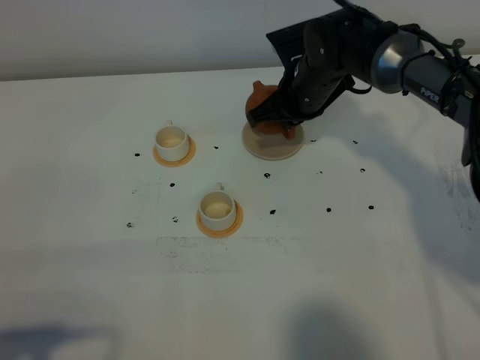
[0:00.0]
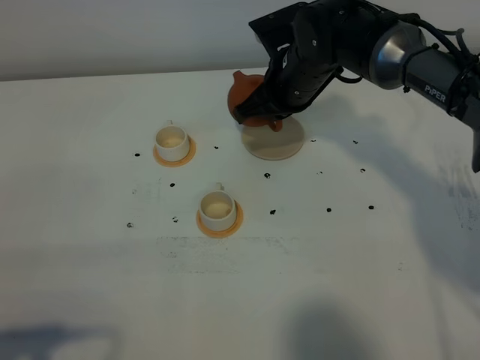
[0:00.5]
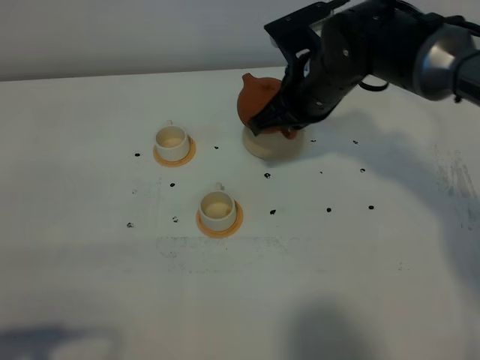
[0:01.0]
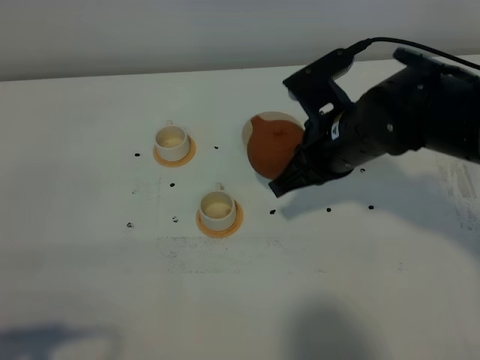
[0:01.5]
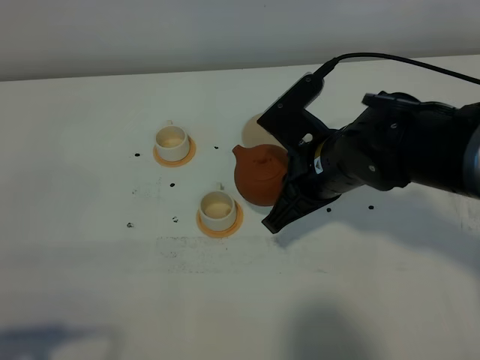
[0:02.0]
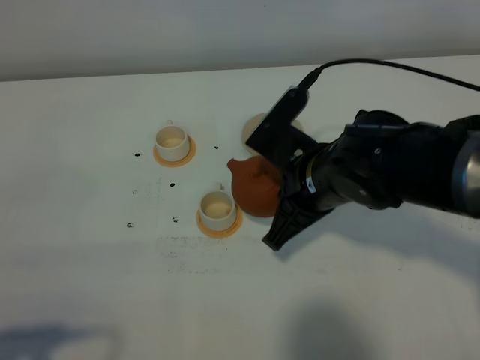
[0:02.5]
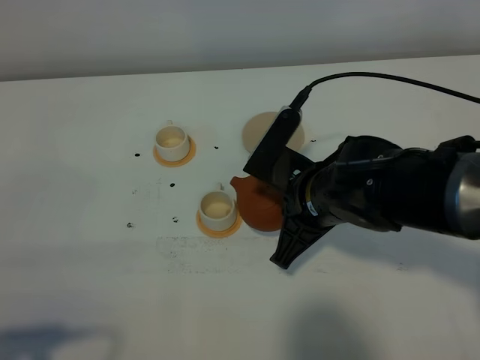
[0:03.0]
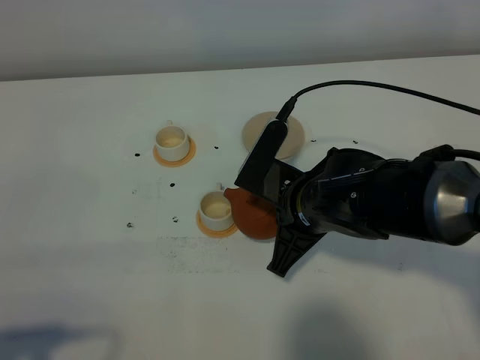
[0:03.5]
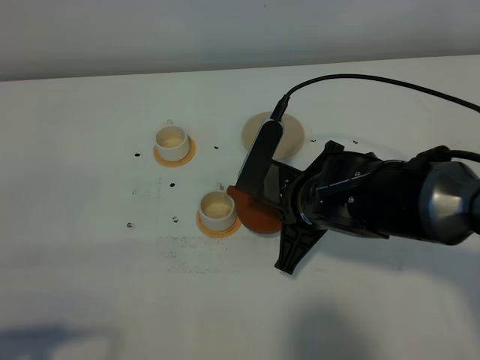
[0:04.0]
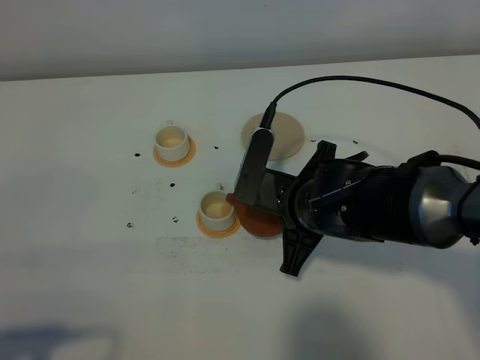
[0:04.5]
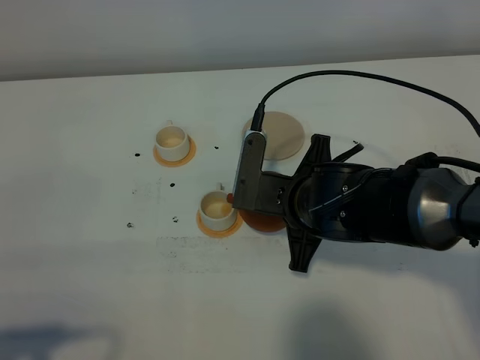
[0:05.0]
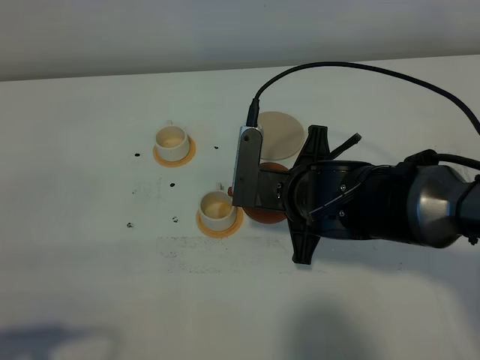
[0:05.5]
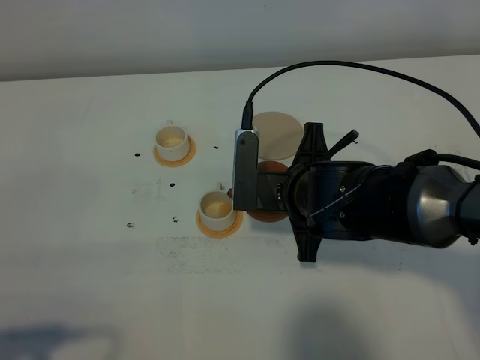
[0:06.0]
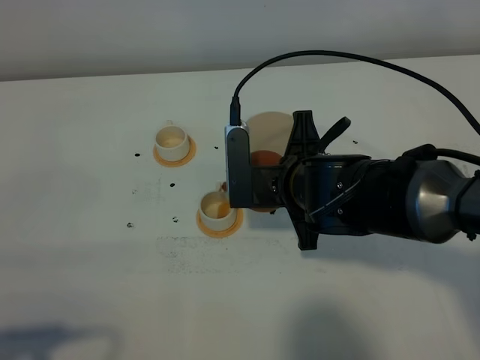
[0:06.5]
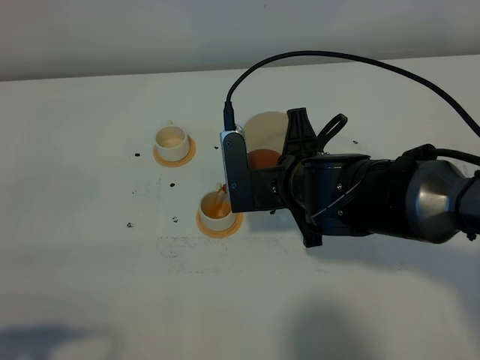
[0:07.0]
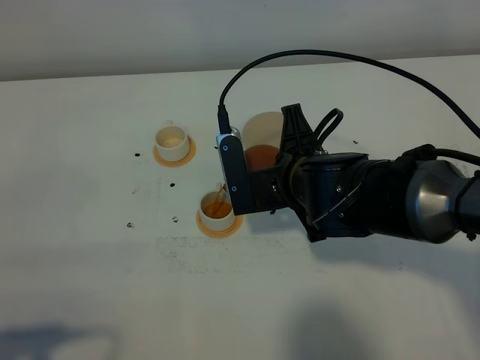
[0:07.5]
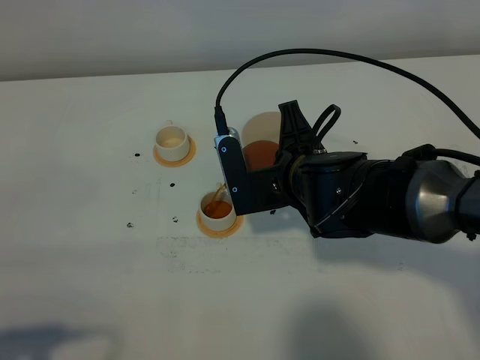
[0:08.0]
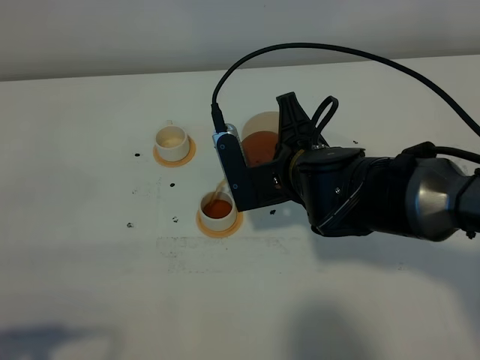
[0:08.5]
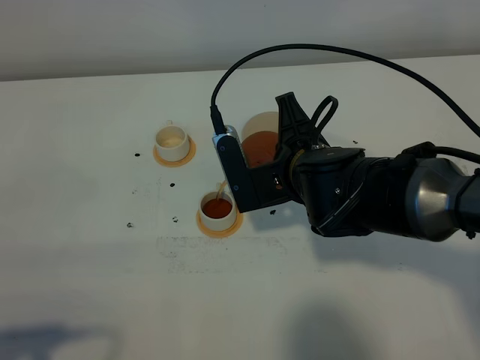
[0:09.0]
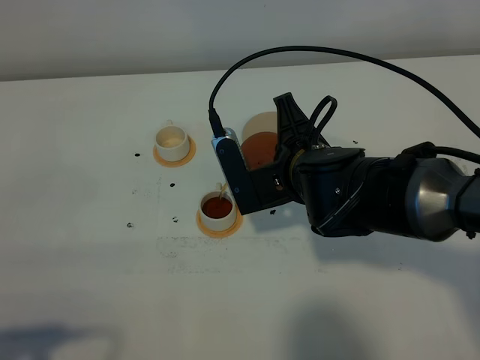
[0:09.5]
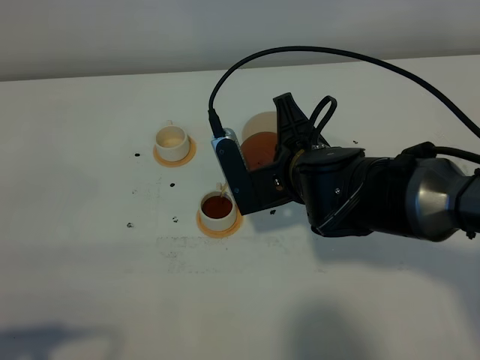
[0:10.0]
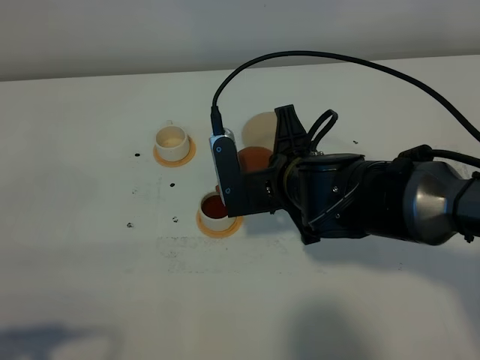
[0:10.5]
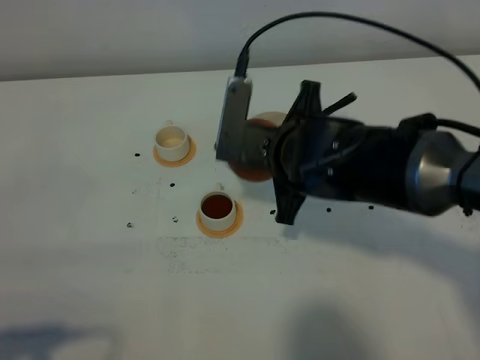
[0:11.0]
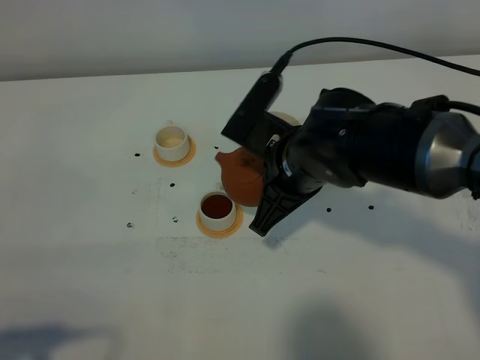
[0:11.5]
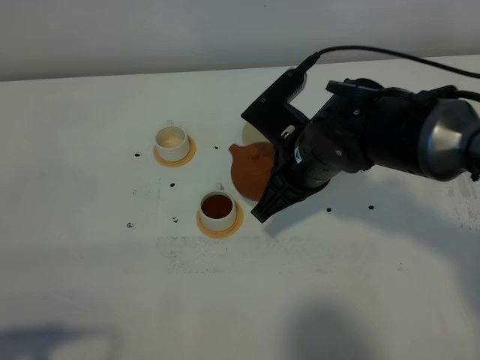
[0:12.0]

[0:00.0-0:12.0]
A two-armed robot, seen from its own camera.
Task of the whole recording: grasp the brown teapot and pour the tea into the two white teacups one by one, put the brown teapot back in its original place.
0:00.0 to 0:02.0: The right gripper heads backward, covering approximately 15 cm.
0:06.0 to 0:08.0: The grippers stay close to where they were, moving slightly.
0:08.0 to 0:10.0: The grippers make only small movements.

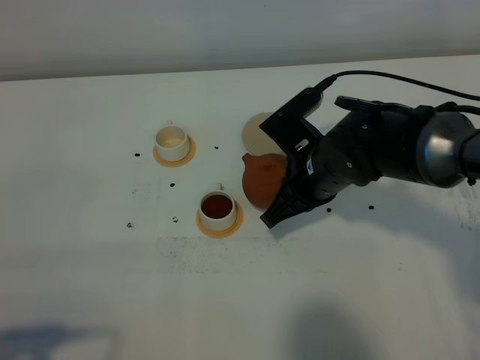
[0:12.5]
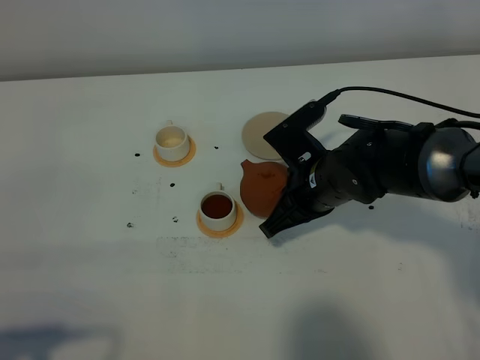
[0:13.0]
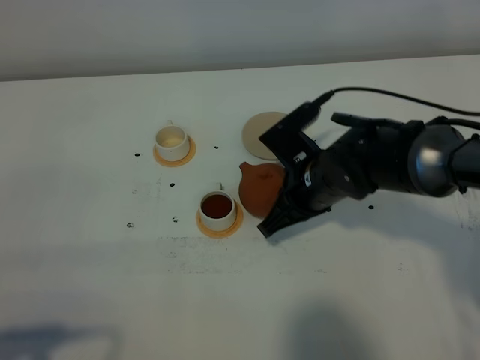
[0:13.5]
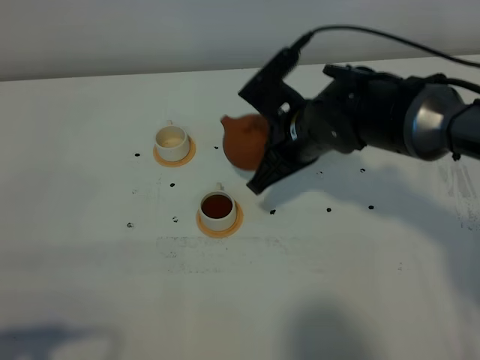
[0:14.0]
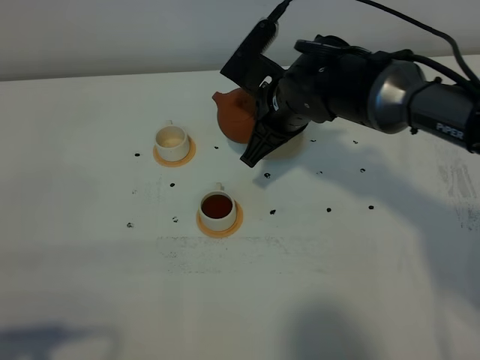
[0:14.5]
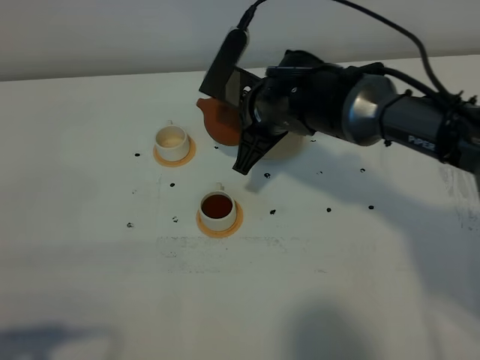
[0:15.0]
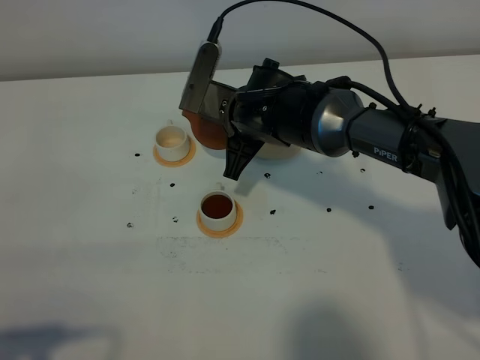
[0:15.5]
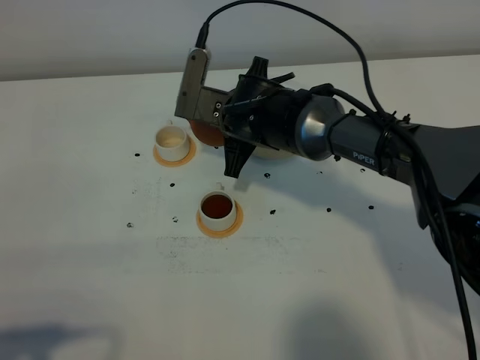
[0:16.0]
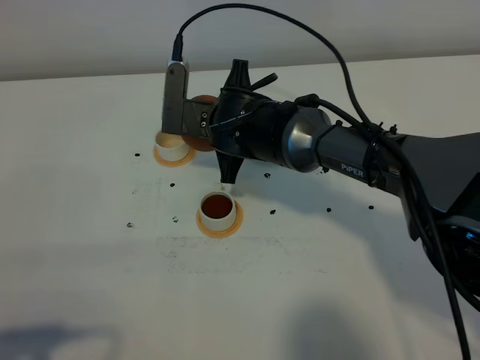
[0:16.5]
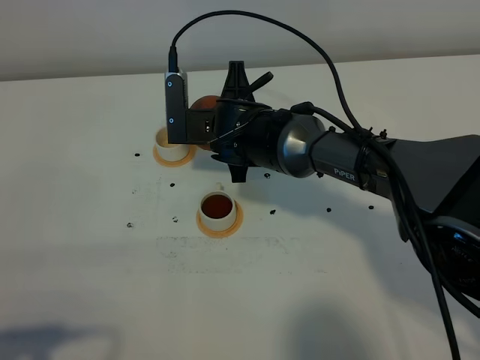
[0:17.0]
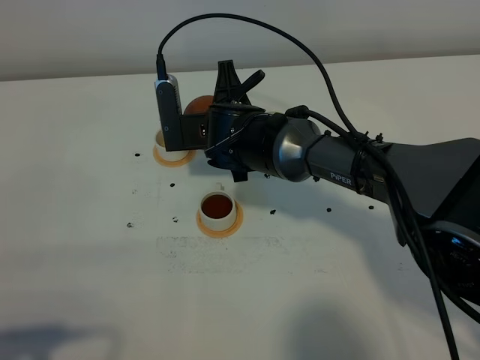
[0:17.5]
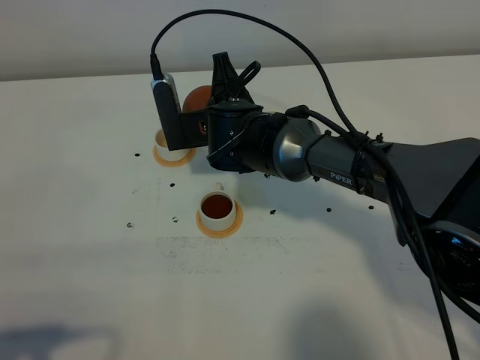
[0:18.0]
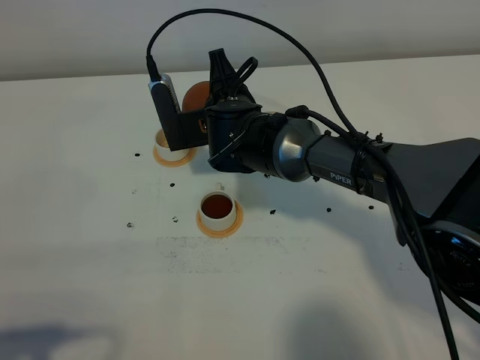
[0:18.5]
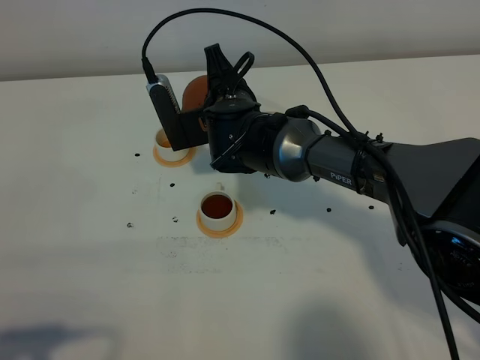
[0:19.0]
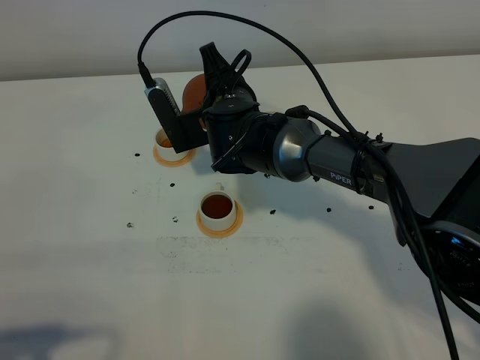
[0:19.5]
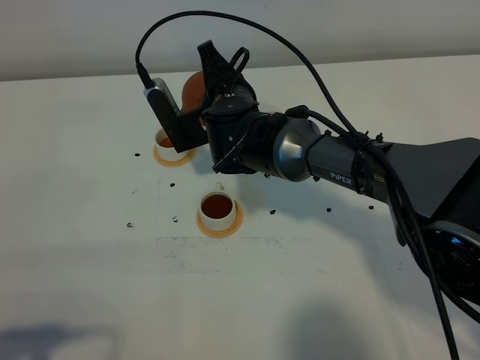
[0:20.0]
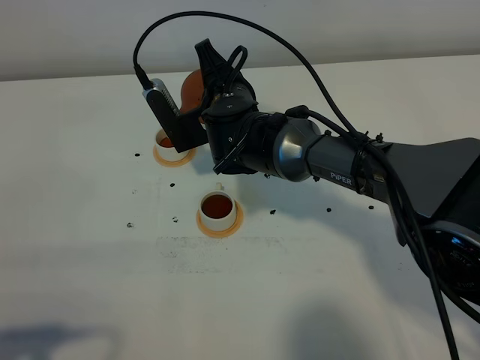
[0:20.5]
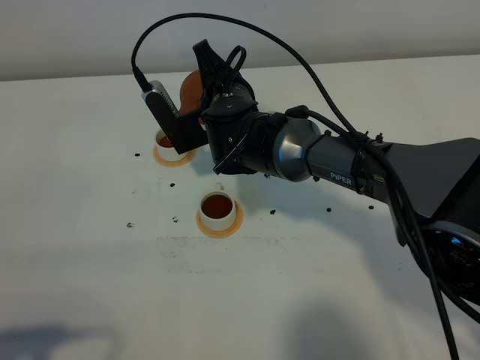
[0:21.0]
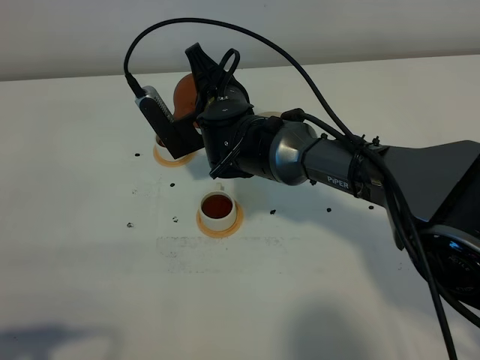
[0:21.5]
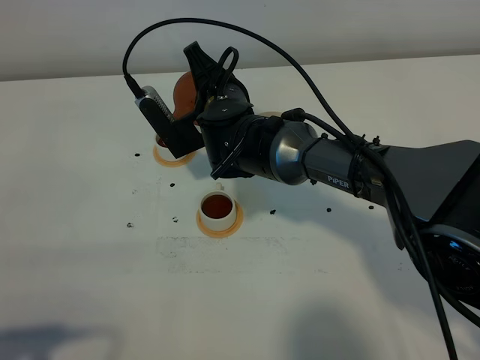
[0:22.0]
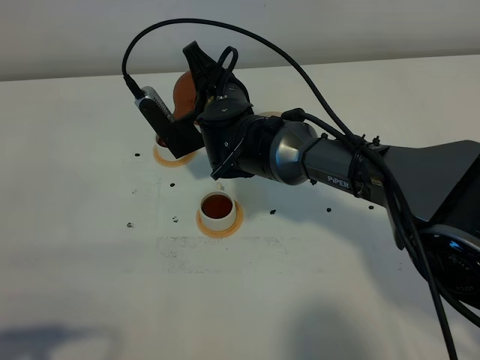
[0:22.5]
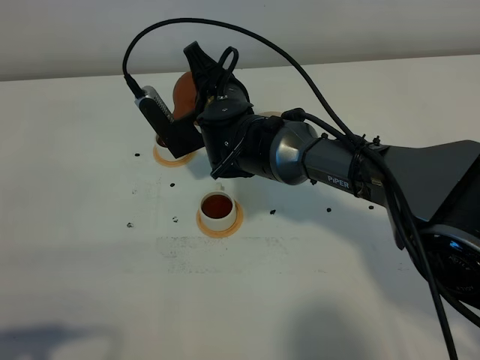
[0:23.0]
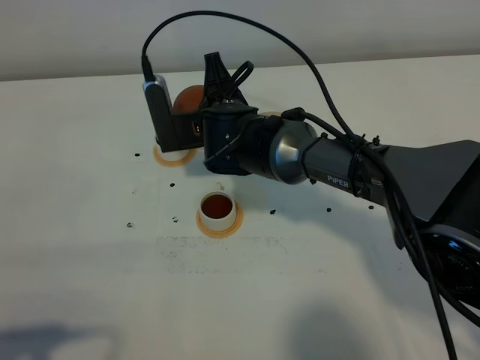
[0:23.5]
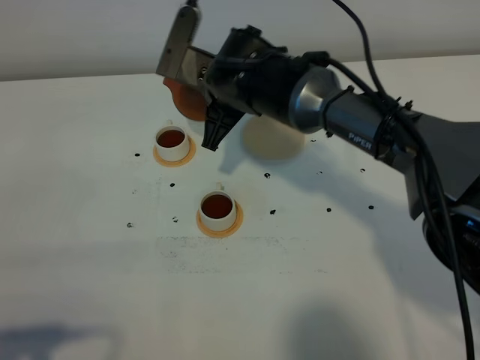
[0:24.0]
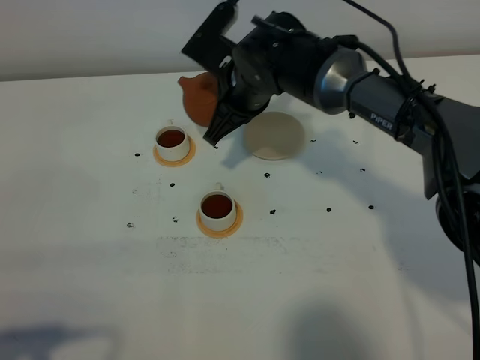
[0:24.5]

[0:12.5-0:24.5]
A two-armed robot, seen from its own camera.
Task of the whole recording: grasp the brown teapot and pour the tea into the two white teacups one by one, put the brown teapot back in its original place.
Step, 0:12.5 to 0:23.5: Pour tea into the teacup with the right gripper.
0:12.5 to 0:14.5: The right gripper goes approximately 5 cm forward.
0:14.5 to 0:16.5: The right gripper moves to the left, roughly 5 cm.
0:18.5 to 0:22.5: The grippers stay close to where they were, moving slightly.
0:22.5 to 0:24.5: The right gripper shifts by approximately 5 cm.

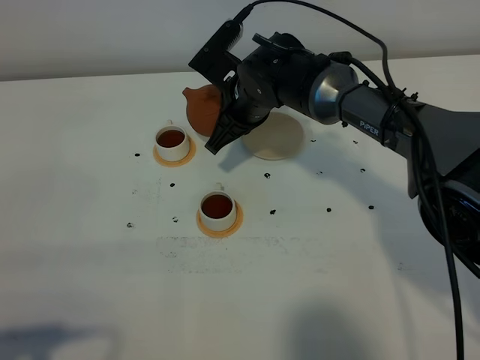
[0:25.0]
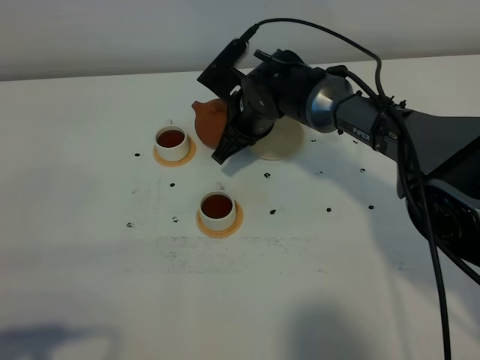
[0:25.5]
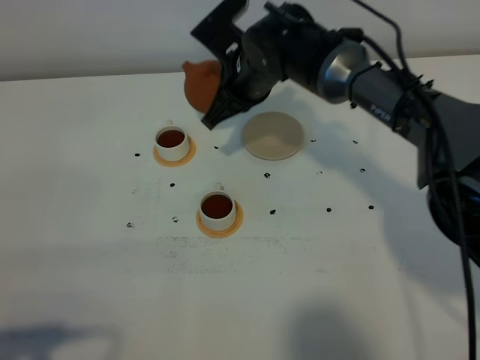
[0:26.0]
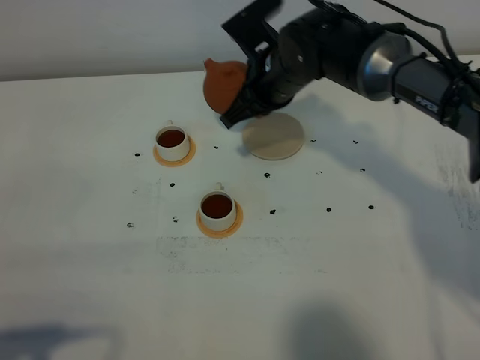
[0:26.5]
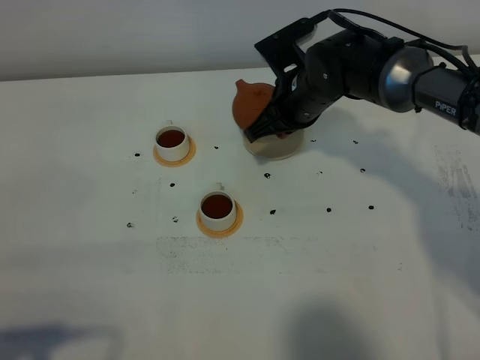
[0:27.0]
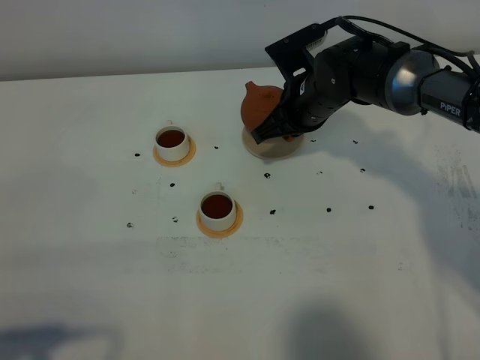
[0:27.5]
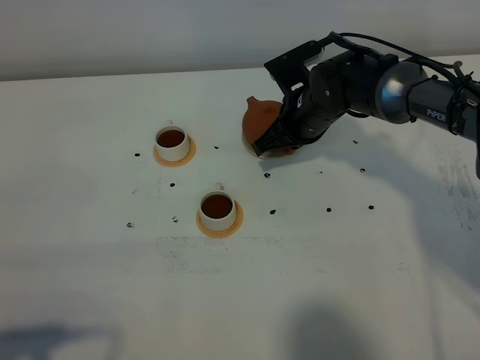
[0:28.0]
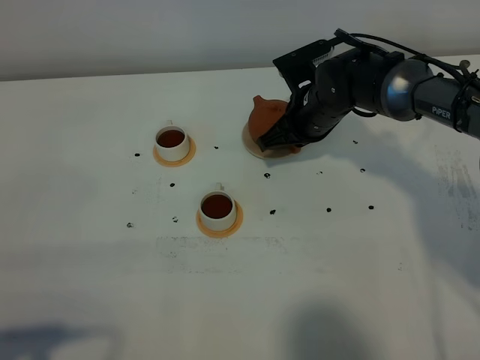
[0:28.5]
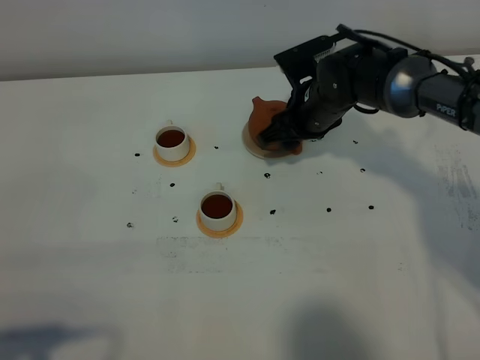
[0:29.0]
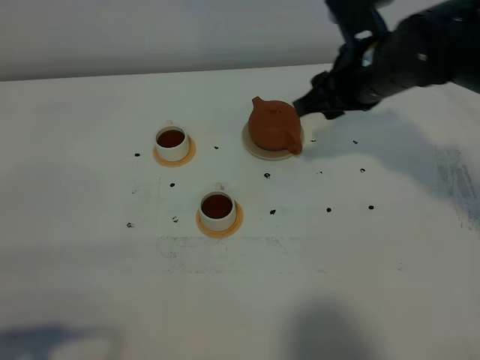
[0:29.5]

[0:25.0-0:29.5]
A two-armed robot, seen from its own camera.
Task of the whole recording: grasp the brown teapot and pour the tea into the two white teacups one by one, put the brown teapot back in its original place.
0:25.0 to 0:27.0: The right gripper is displaced to the right by about 5 cm.
0:27.0 to 0:29.5: The right gripper moves upward, backward and to the right, about 10 cm, and opens its fingers.
